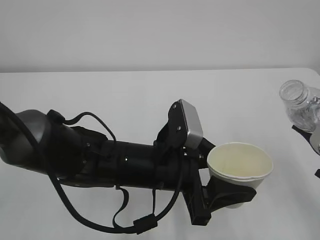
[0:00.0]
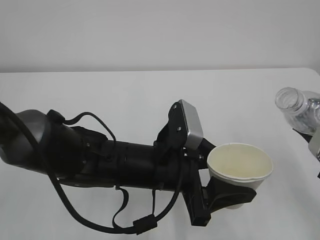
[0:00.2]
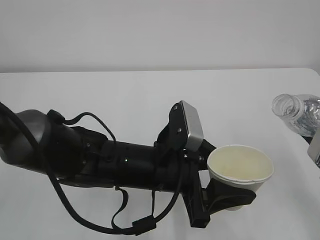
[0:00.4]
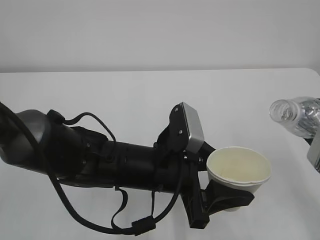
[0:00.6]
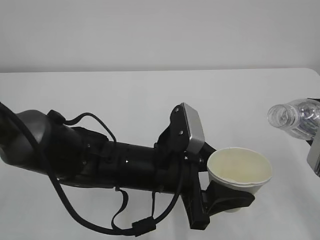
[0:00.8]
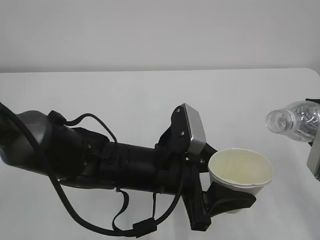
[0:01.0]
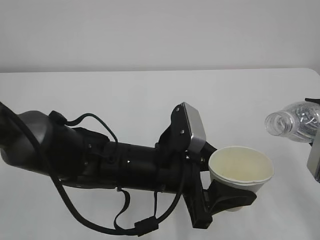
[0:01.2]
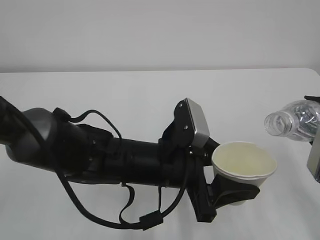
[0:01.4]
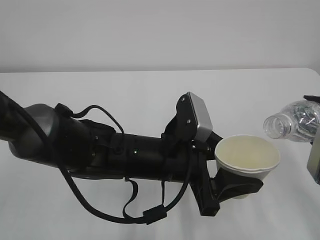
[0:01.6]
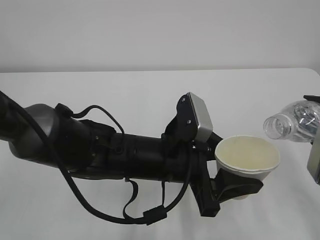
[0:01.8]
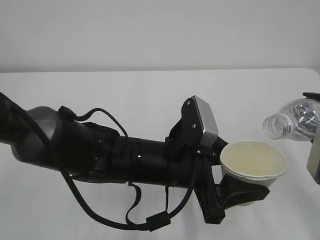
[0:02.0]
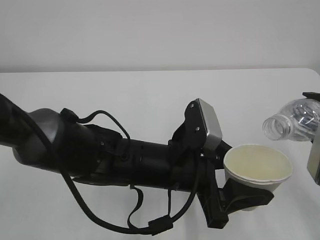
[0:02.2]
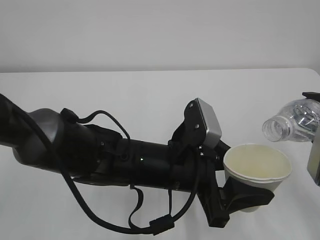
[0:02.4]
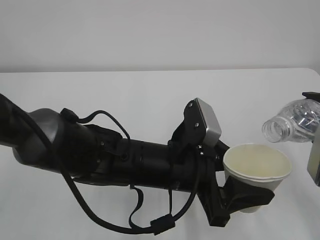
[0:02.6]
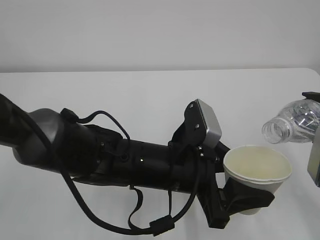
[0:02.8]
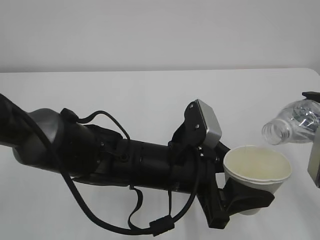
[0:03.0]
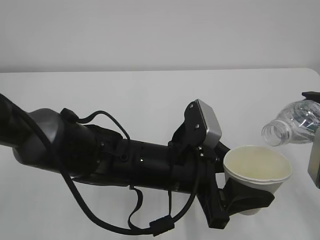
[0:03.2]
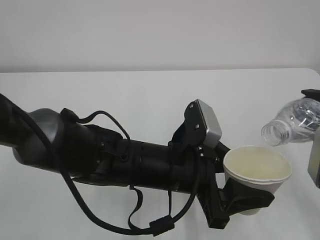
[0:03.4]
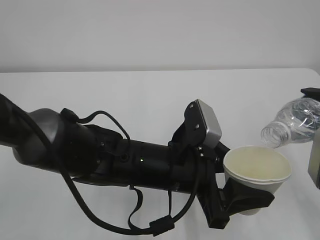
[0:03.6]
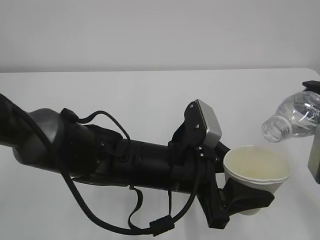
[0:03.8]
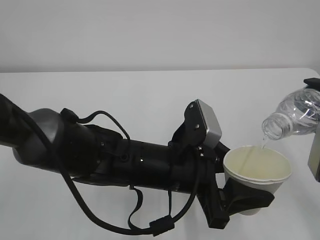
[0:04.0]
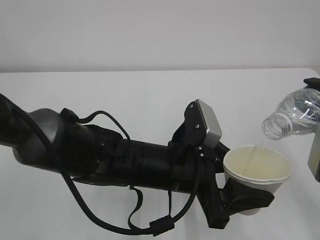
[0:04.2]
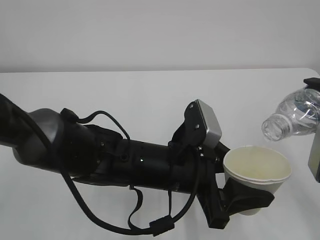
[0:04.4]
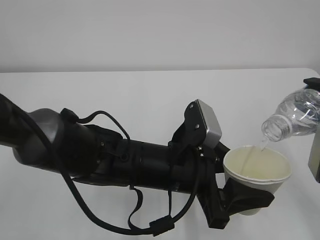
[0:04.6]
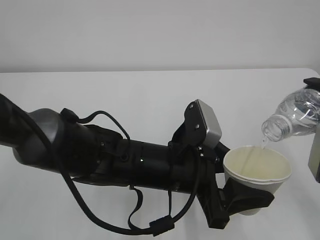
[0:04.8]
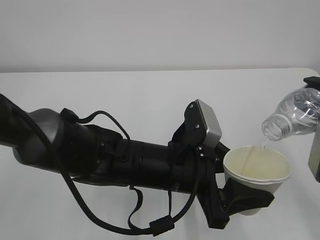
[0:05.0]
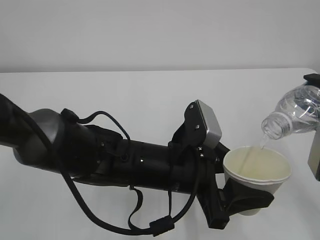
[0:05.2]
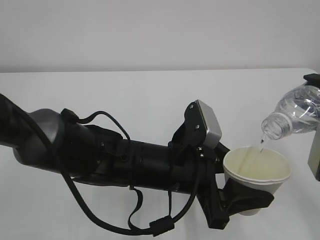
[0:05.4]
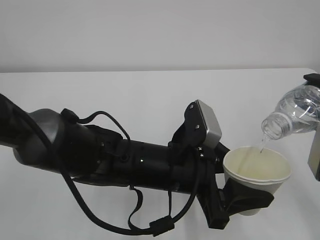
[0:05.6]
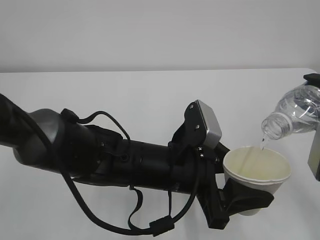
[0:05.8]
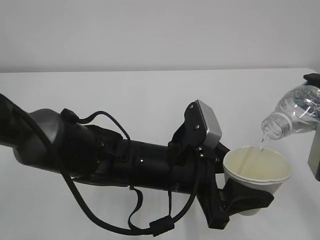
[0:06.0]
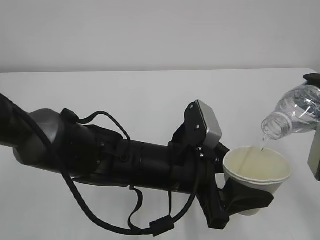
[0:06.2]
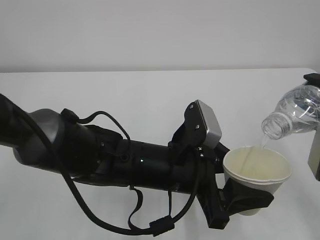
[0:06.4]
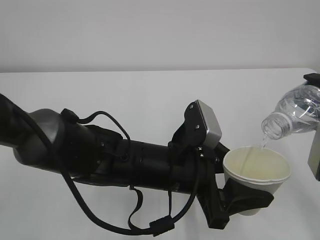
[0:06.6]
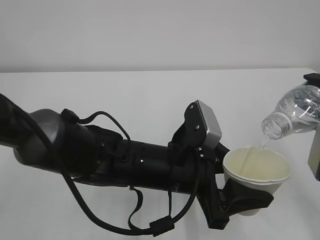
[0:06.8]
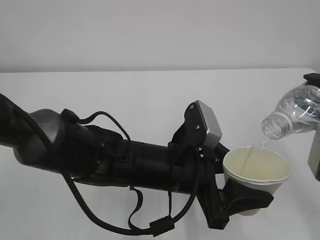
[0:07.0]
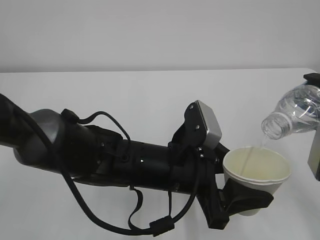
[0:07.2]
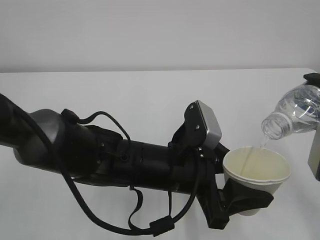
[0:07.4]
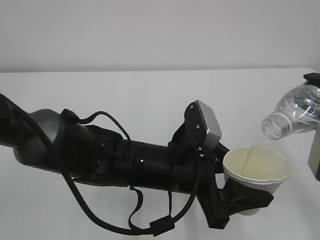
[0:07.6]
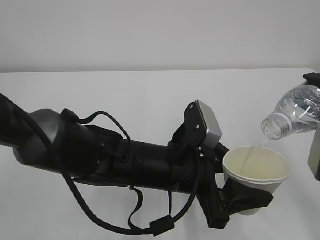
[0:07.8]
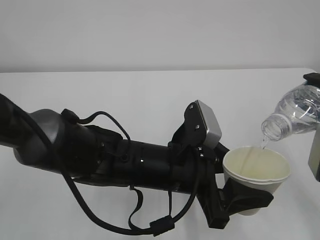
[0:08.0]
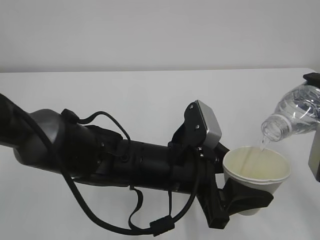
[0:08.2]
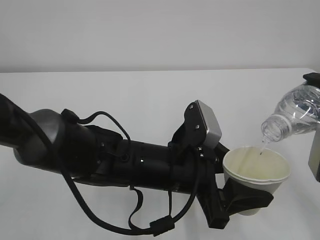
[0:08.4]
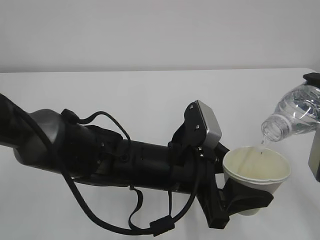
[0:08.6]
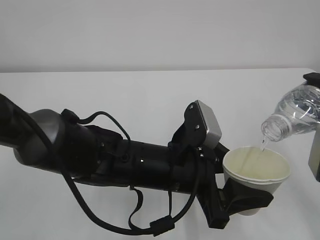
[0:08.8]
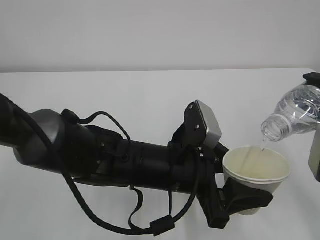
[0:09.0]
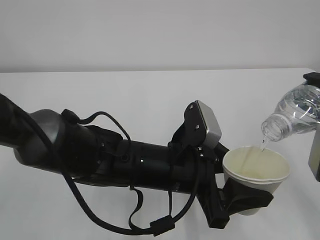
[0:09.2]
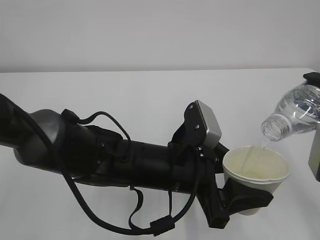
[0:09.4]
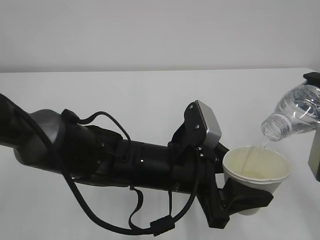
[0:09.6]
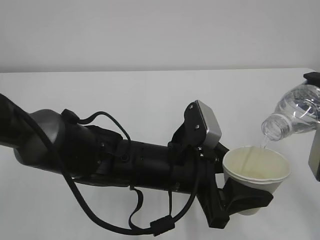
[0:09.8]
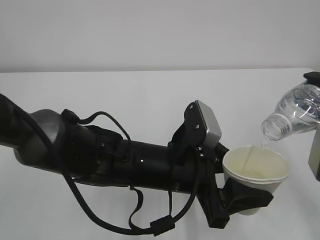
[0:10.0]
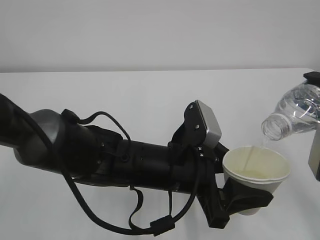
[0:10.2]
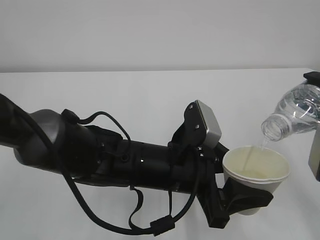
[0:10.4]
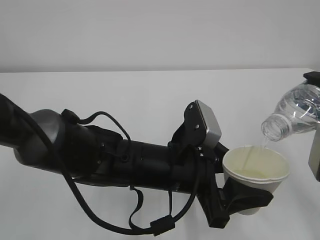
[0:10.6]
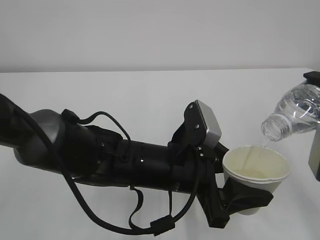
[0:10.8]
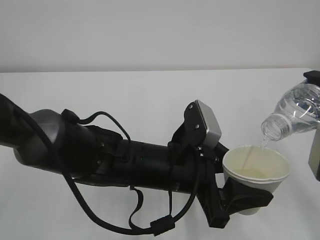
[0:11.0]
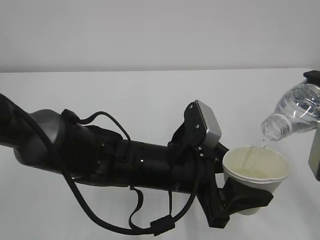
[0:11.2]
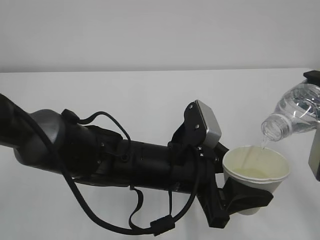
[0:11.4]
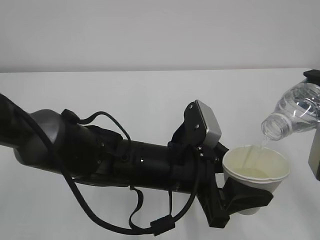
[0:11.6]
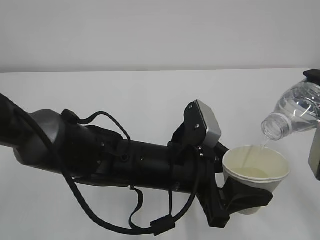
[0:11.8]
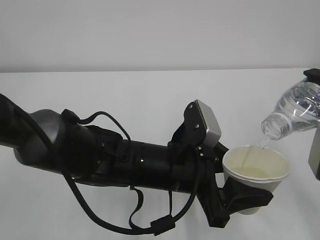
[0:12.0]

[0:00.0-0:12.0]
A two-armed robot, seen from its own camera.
0:01.6 to 0:04.4: The grippers stay close to where they were, moving slightly.
0:04.4 to 0:10.4: Neither gripper changes place.
0:10.4 to 0:12.0: Neither gripper changes place.

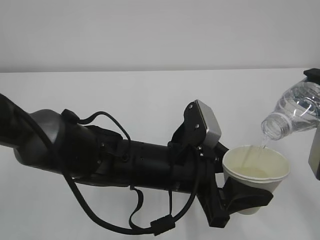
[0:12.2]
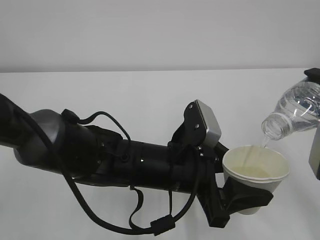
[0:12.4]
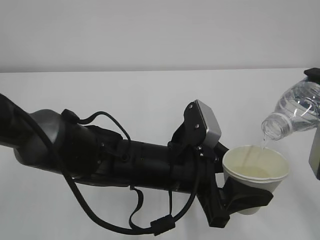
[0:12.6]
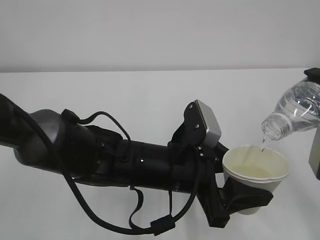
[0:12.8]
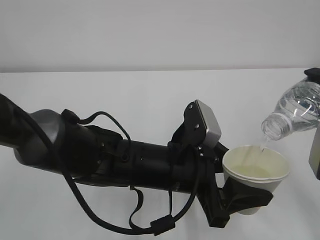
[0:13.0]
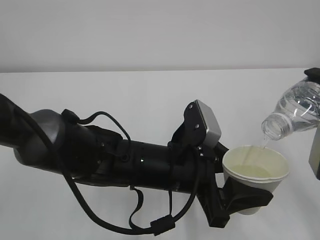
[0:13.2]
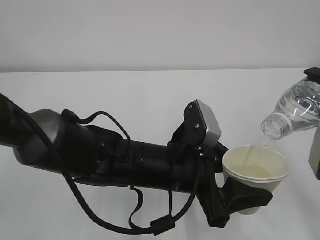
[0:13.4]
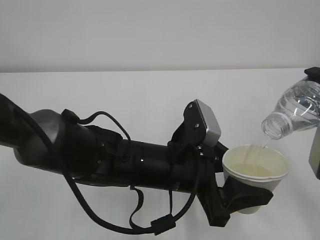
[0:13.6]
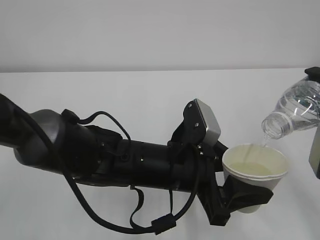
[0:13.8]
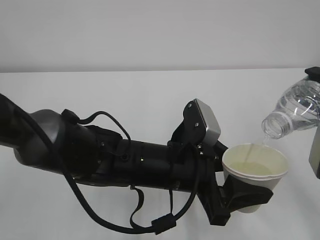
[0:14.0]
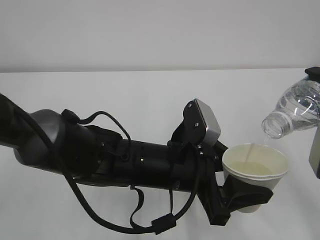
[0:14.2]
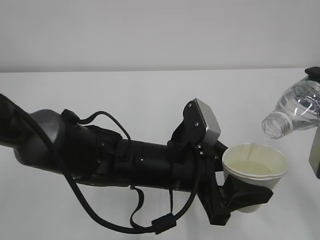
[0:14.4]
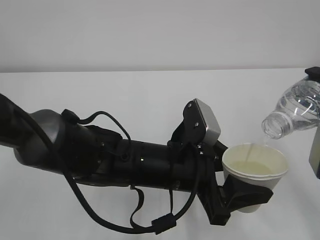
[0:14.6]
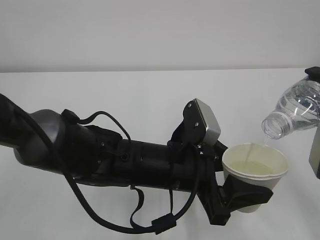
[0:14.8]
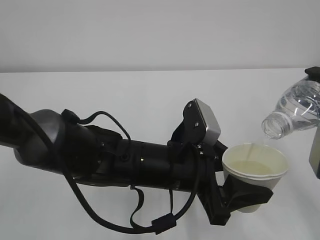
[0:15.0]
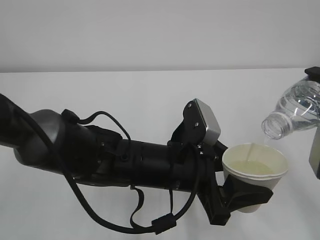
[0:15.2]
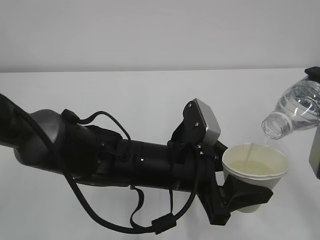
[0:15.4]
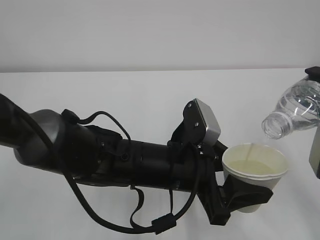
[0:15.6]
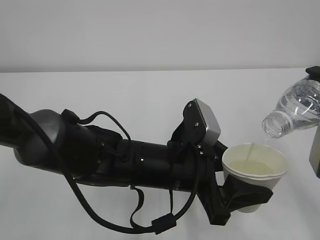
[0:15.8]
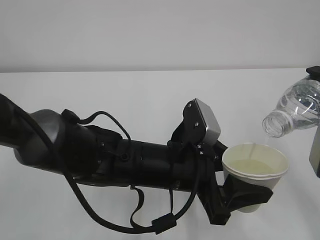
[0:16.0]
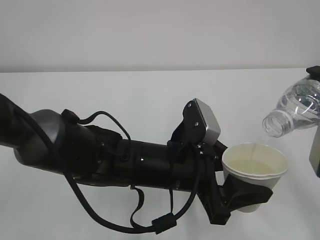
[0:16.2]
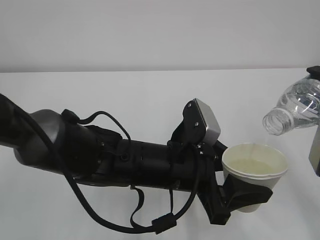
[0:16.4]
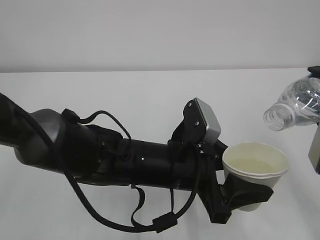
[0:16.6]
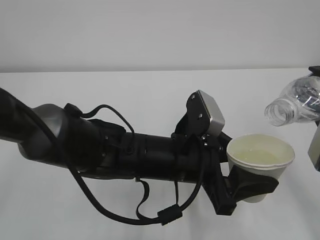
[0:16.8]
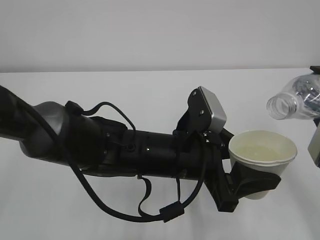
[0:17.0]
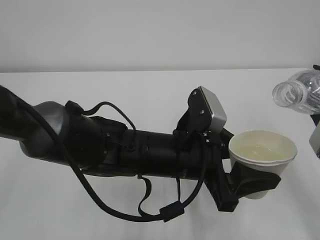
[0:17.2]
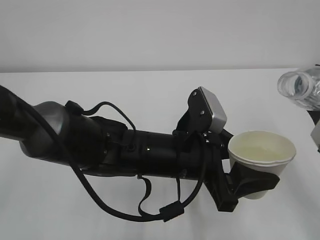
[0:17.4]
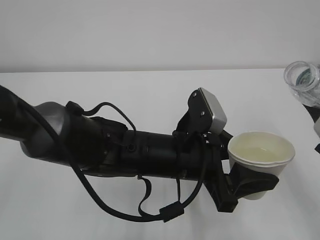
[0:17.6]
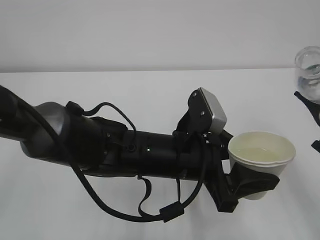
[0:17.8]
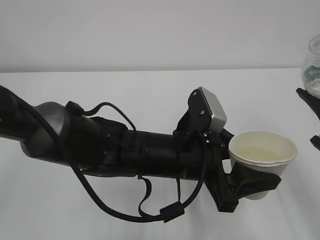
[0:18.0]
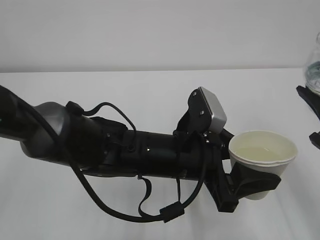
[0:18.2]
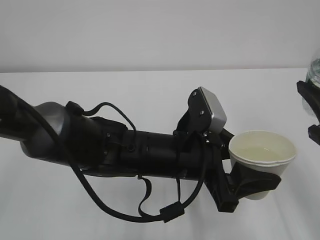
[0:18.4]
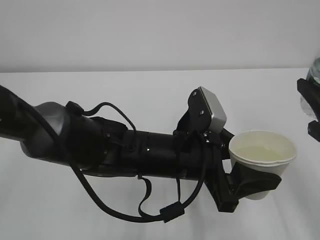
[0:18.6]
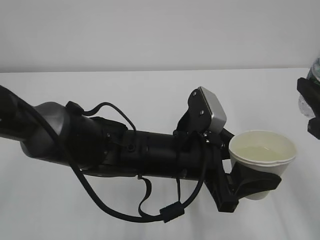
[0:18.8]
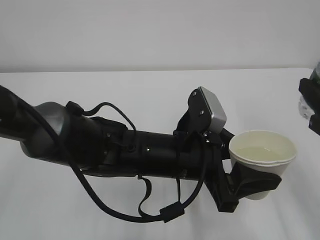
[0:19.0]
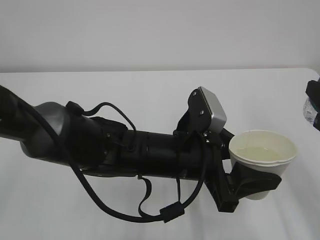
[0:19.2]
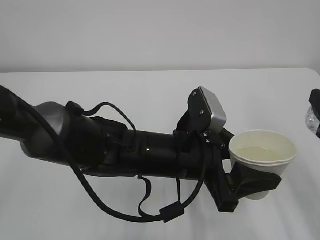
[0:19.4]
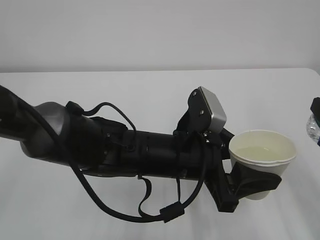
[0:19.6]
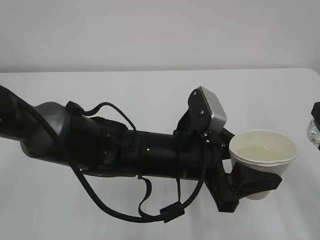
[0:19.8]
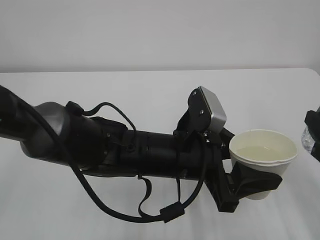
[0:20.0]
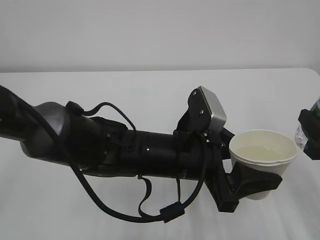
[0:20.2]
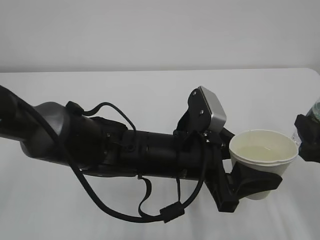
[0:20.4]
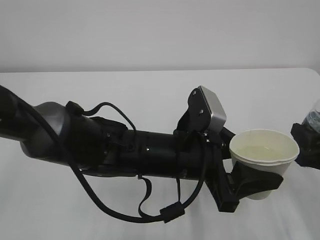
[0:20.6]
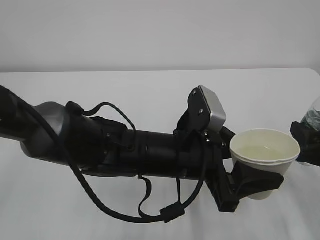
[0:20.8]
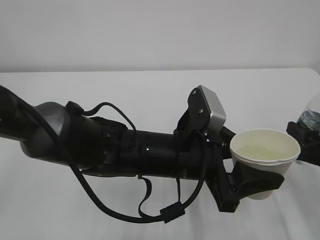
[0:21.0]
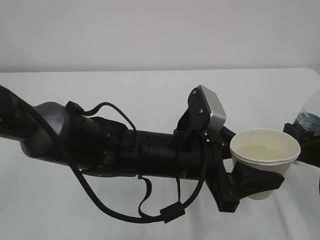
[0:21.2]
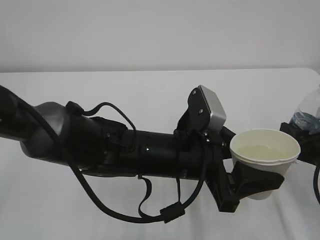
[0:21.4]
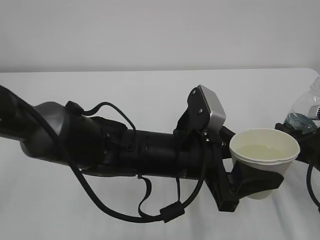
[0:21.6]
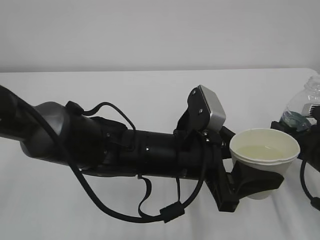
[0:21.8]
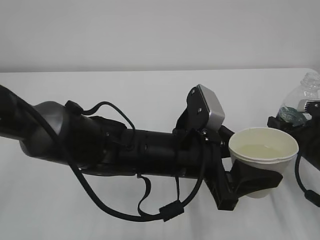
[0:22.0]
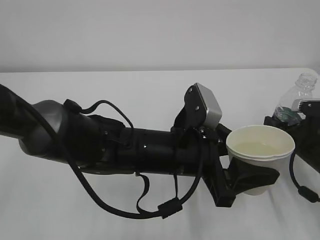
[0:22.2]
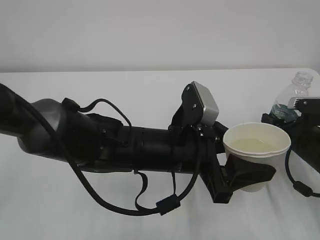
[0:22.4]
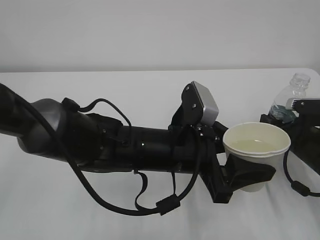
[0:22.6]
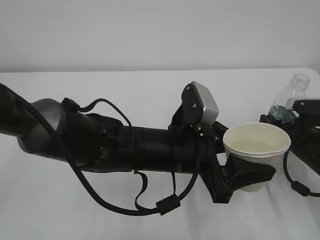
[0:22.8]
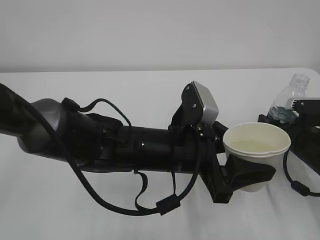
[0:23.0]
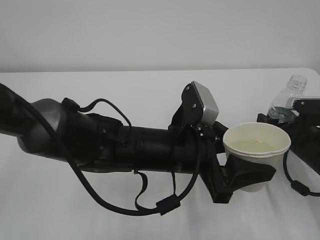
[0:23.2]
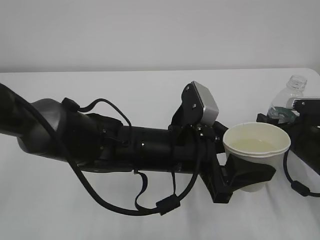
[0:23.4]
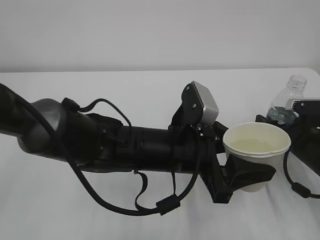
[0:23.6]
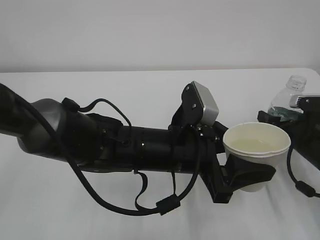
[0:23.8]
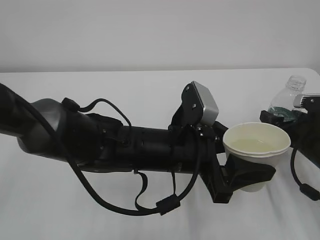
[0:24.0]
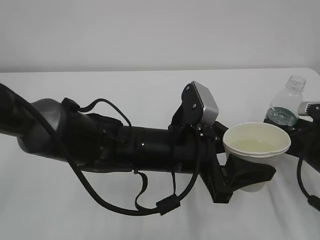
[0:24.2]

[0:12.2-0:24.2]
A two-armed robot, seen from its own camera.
0:12.2 to 0:15.2: The two grippers keep their place.
0:15.2 to 0:16.6: The grippers make only small movements.
0:19.8 to 0:21.2: The right gripper goes about 10 cm downward and forward.
0:21.2 to 0:22.6: The right gripper heads forward, covering approximately 10 cm.
0:22.6 to 0:24.2: The right gripper opens its fingers.
